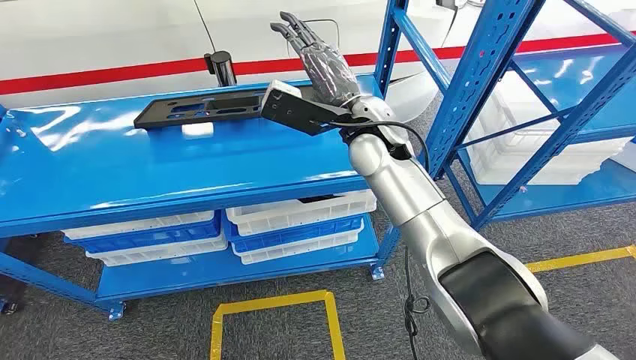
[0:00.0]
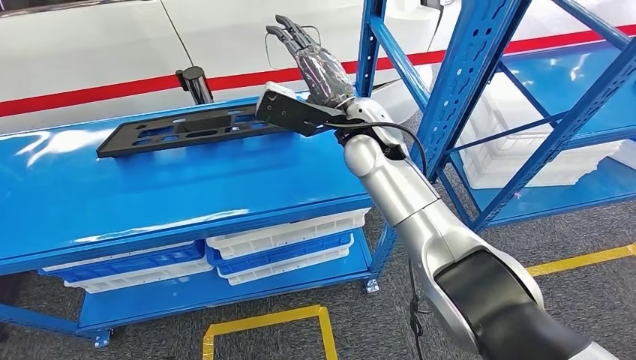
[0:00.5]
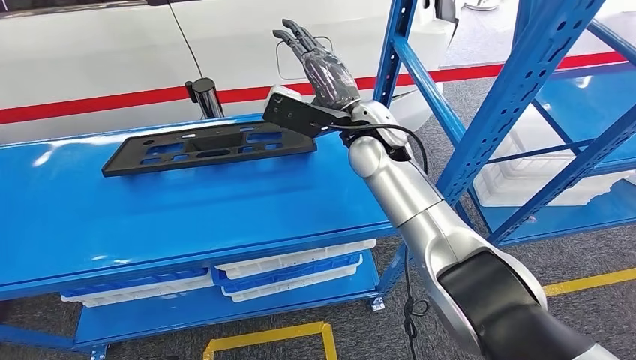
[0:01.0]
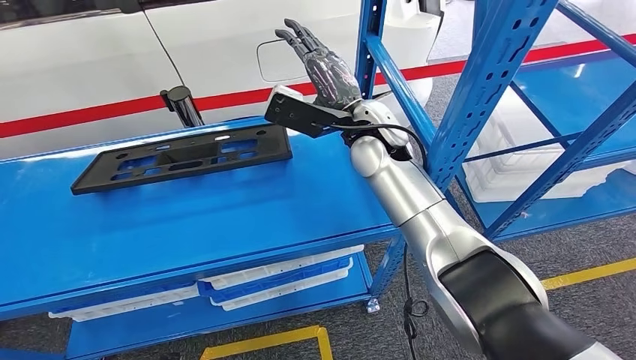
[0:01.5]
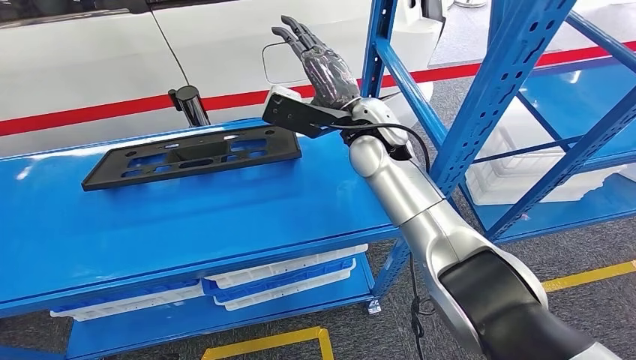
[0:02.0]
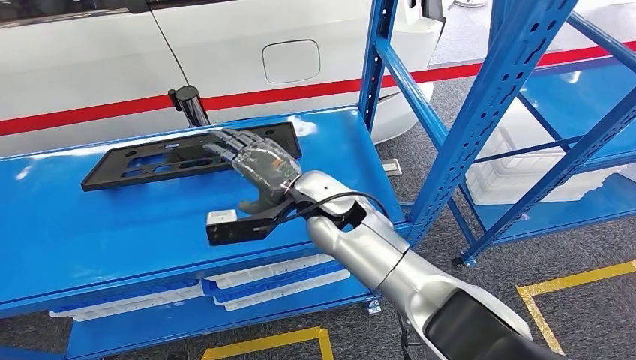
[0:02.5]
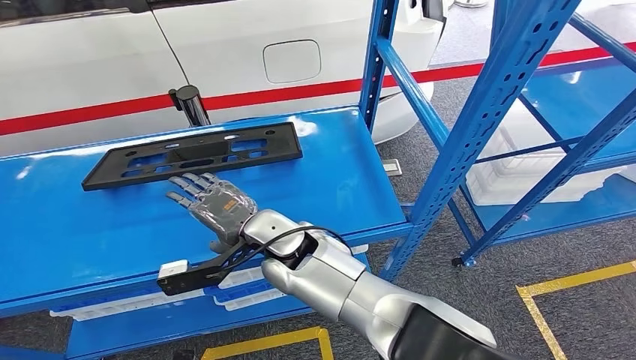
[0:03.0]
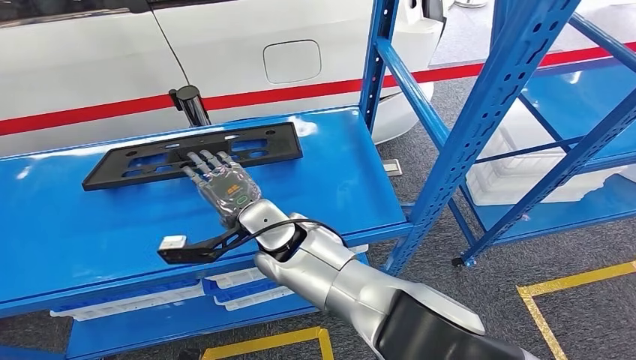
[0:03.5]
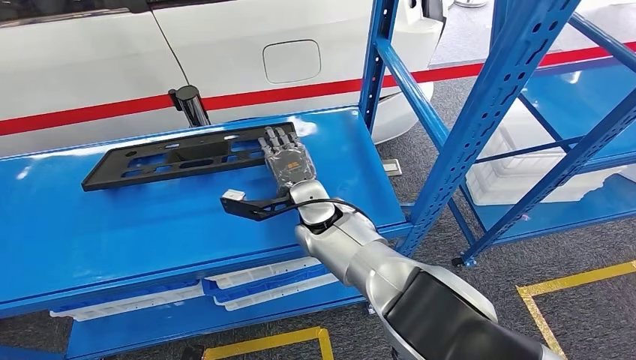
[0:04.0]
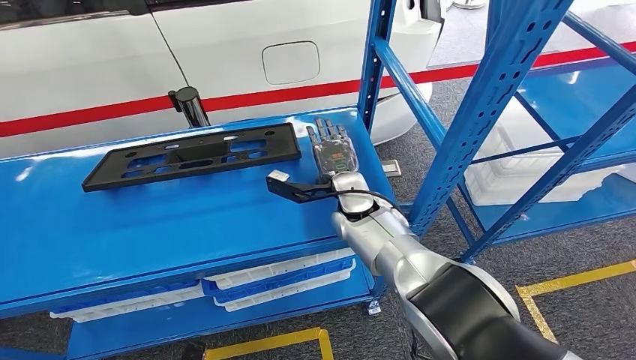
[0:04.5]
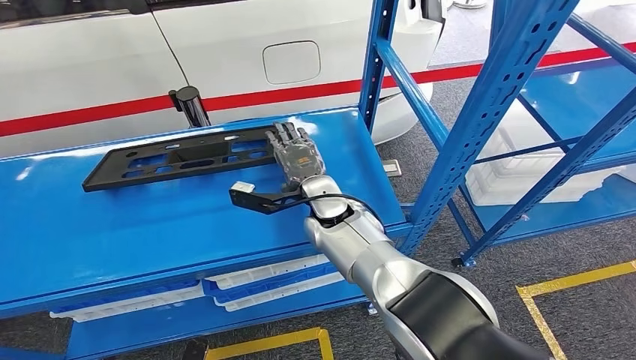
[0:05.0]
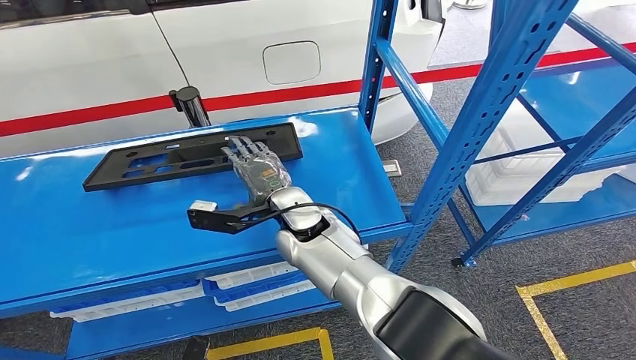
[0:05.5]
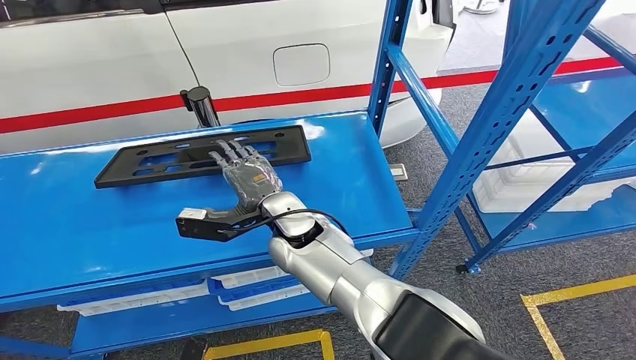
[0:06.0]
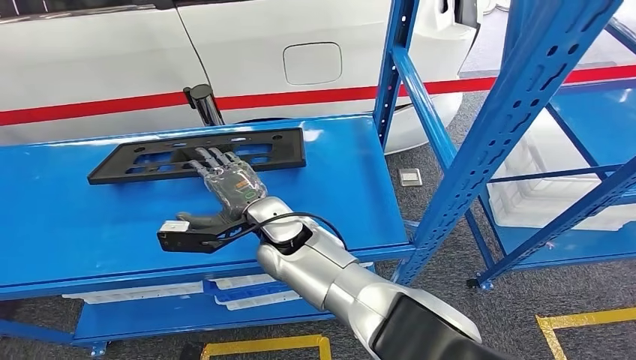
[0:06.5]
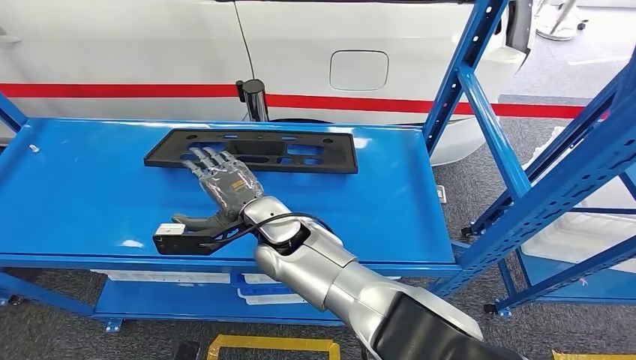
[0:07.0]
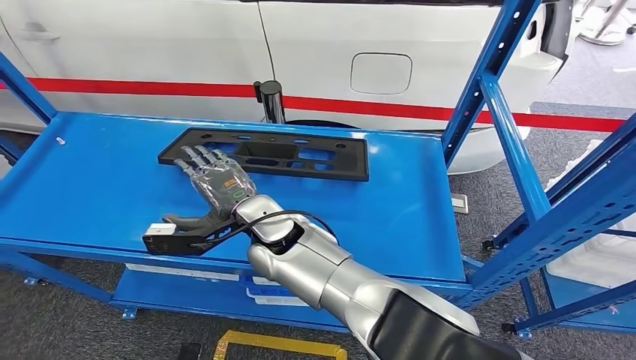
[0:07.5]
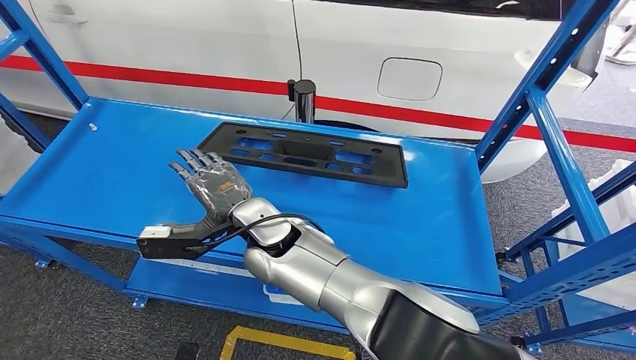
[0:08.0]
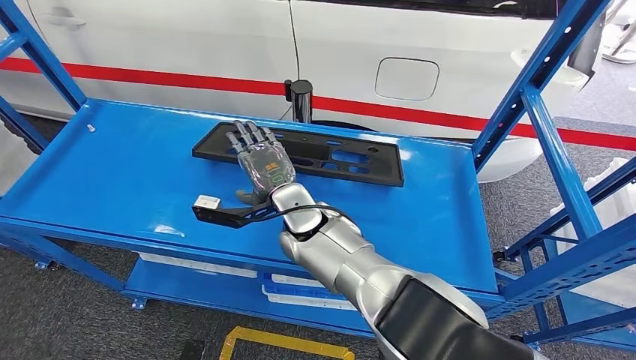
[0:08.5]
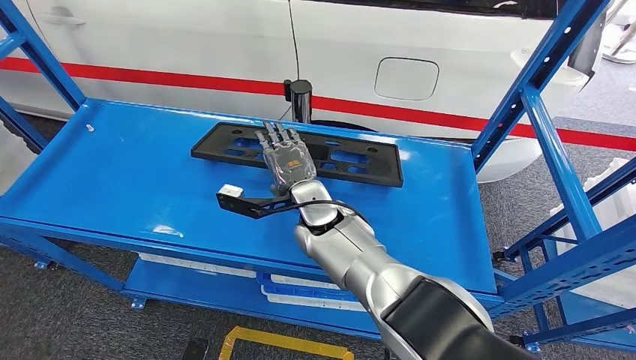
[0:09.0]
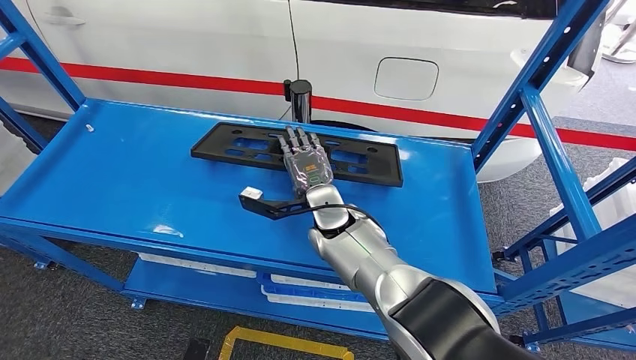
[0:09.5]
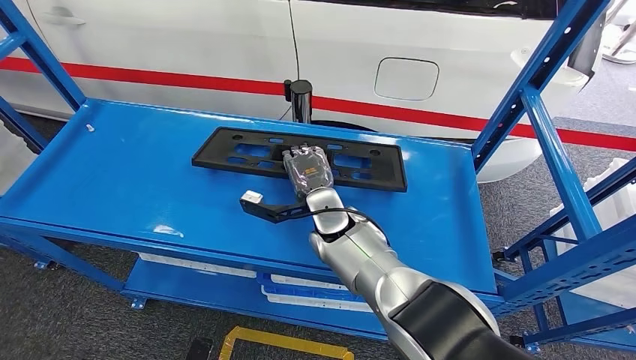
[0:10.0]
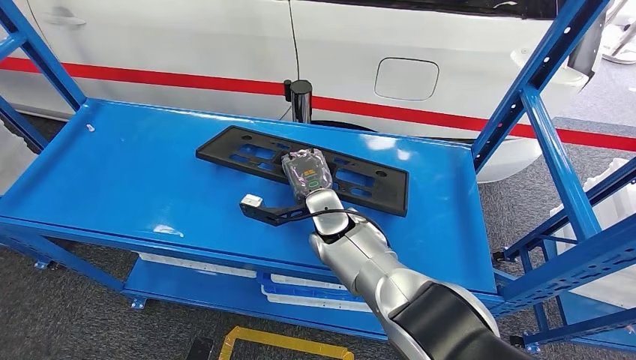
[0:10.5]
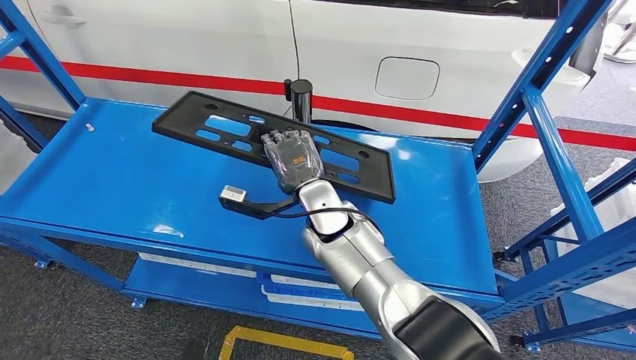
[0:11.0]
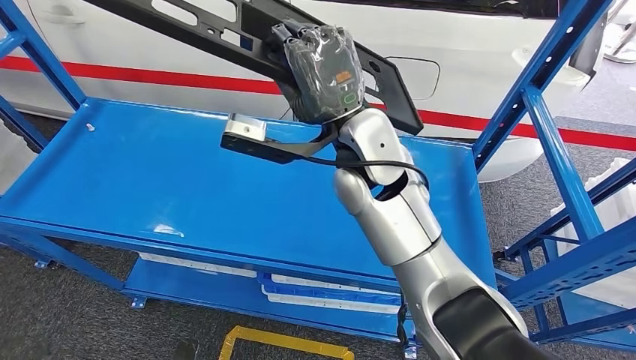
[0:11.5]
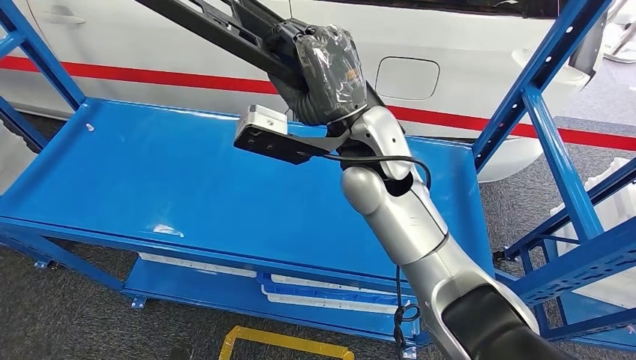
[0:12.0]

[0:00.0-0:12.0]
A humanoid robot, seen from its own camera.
0:02.0 to 0:04.0: The right hand heads downward and to the left, covering roughly 15 cm.

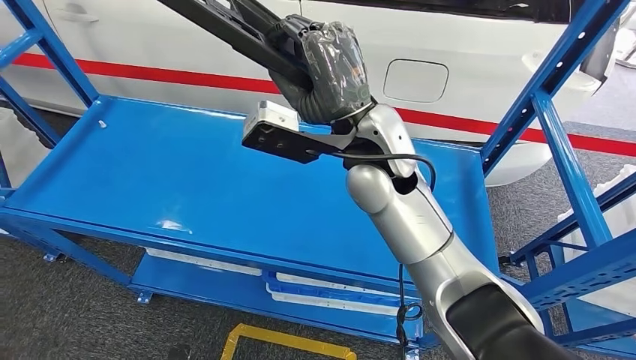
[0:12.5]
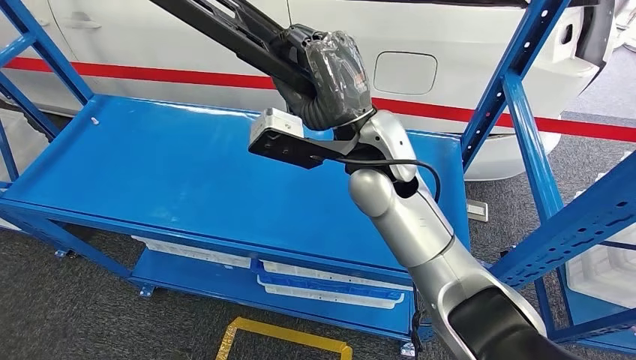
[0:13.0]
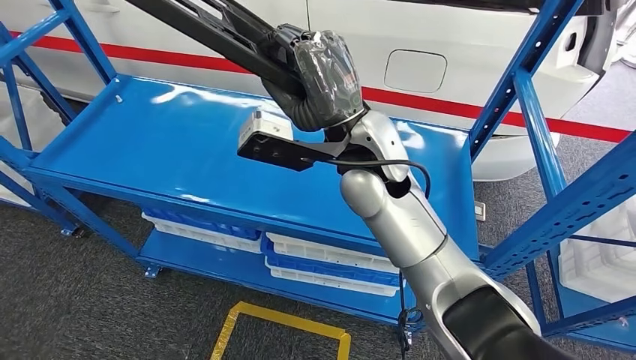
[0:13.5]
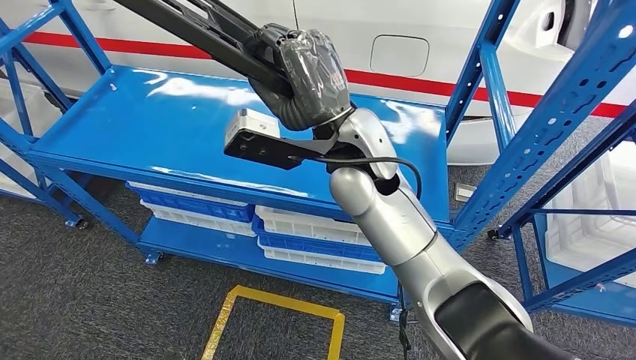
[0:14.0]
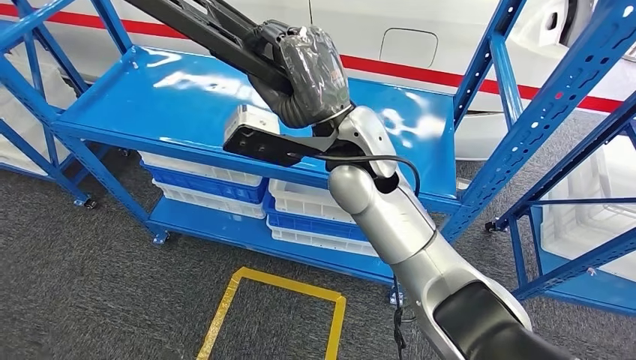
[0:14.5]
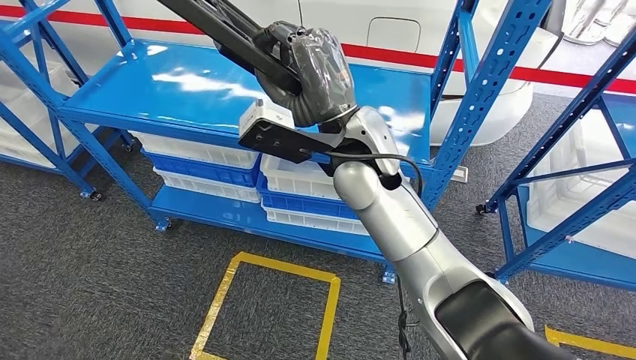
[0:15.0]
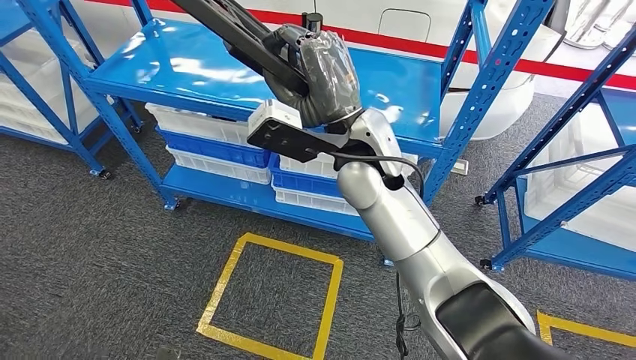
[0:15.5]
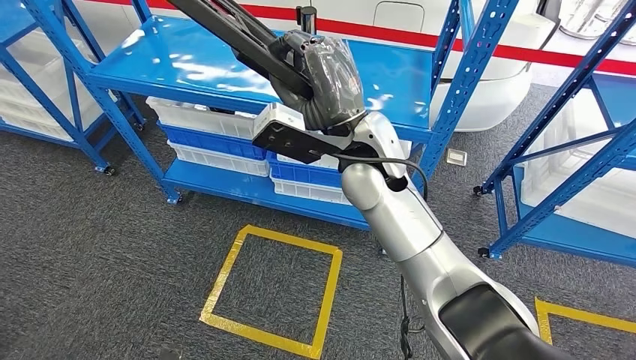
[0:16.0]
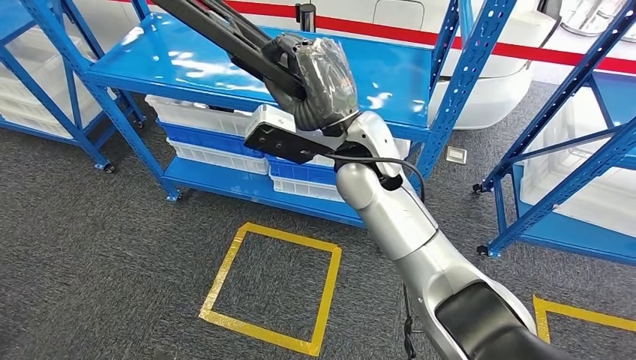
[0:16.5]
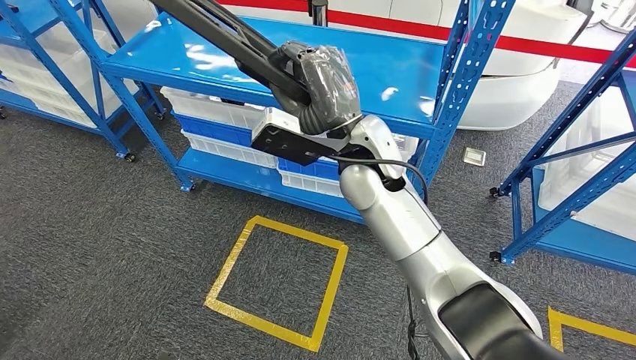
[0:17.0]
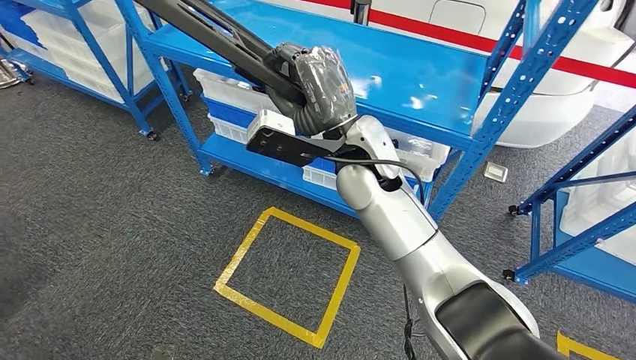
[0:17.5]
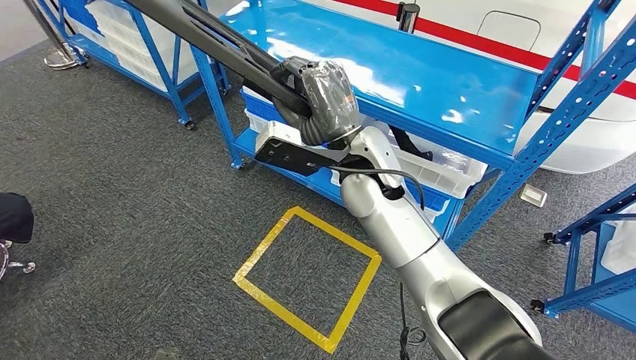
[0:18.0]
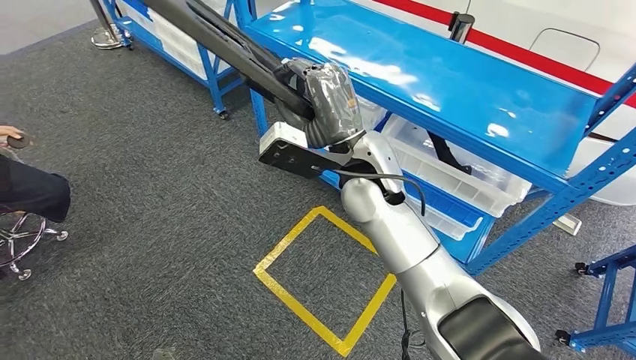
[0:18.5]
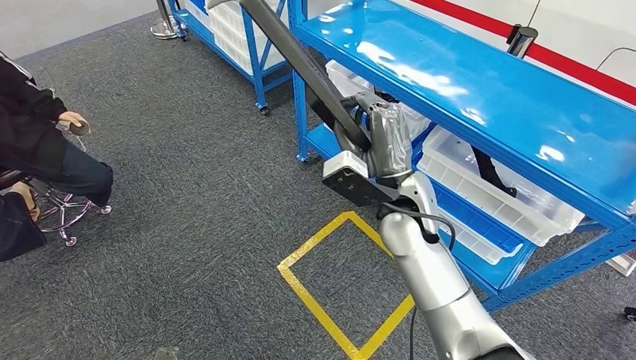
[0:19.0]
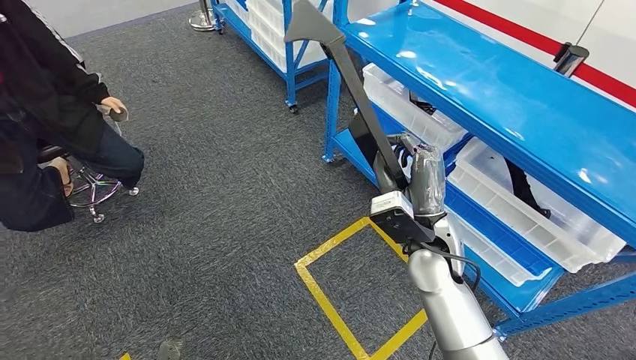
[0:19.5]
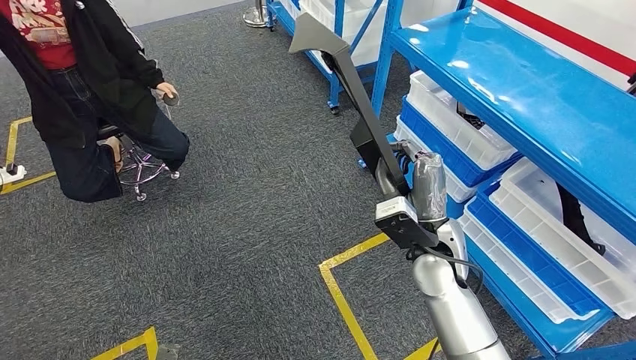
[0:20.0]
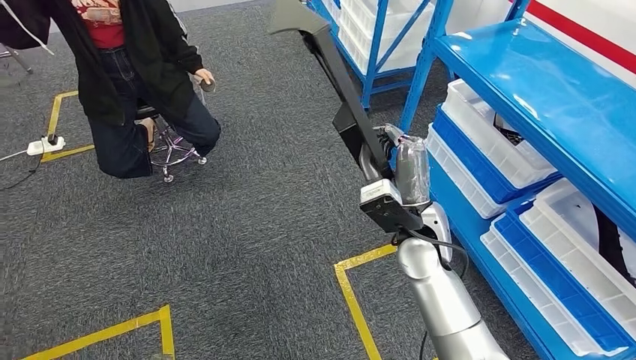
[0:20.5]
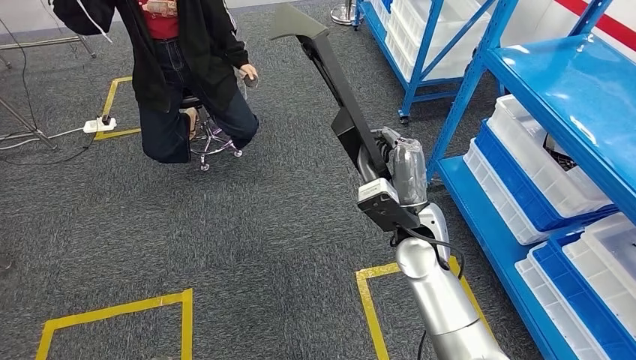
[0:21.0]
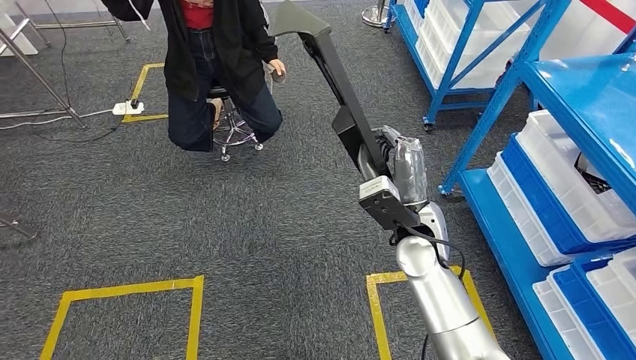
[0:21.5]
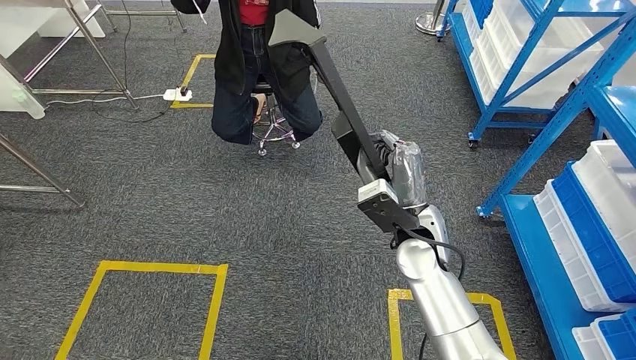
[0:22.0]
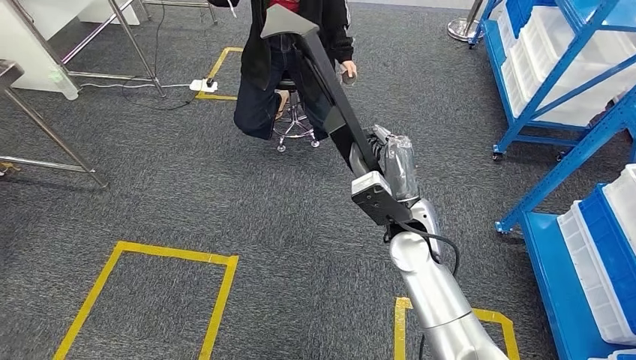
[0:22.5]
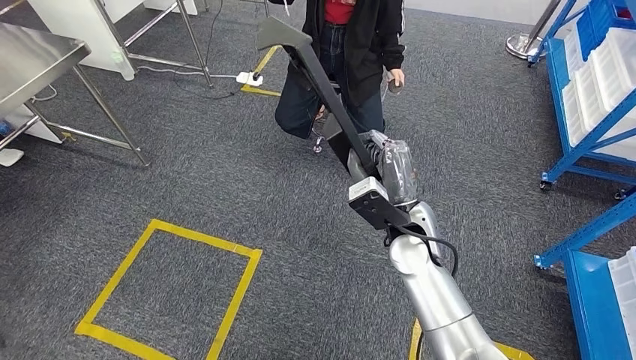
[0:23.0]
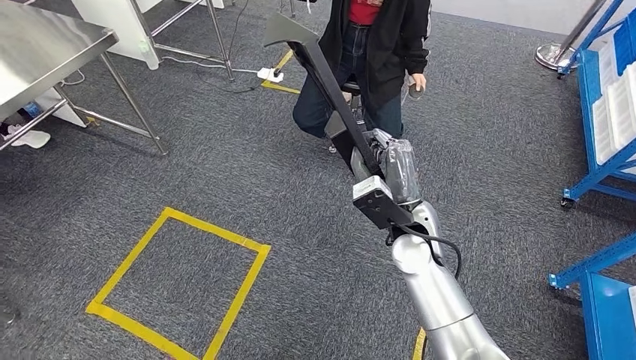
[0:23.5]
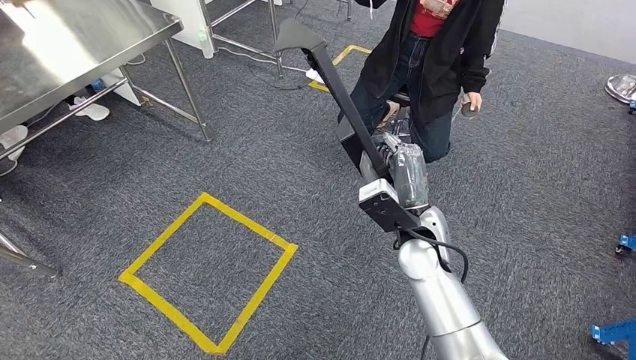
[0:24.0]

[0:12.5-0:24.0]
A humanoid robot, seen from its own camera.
Step, 0:12.5 to 0:15.5: Pick up the large material from the shelf.
